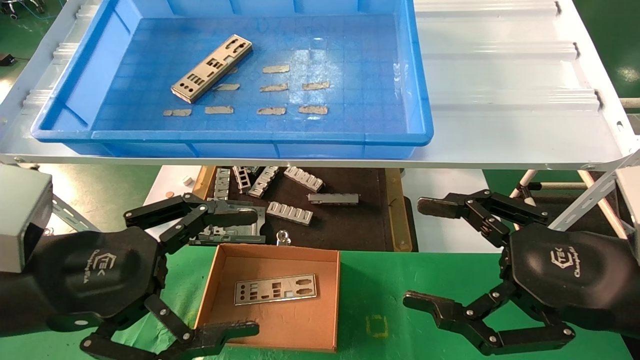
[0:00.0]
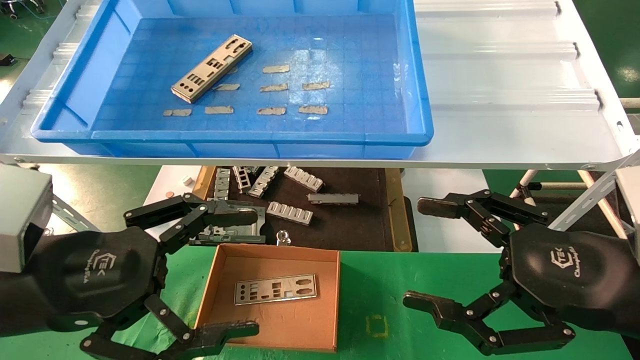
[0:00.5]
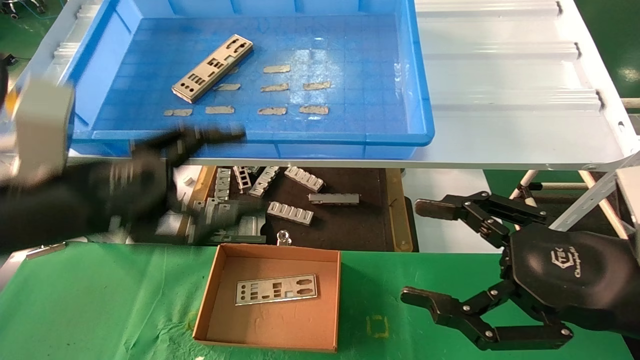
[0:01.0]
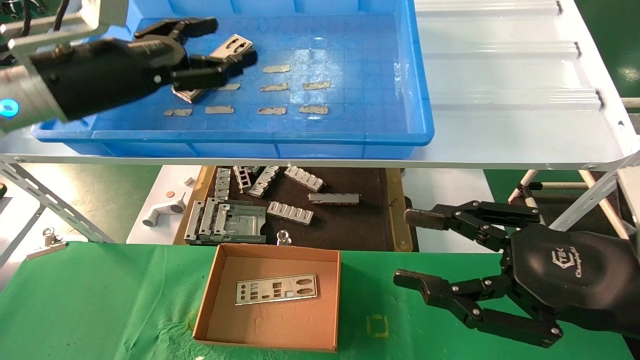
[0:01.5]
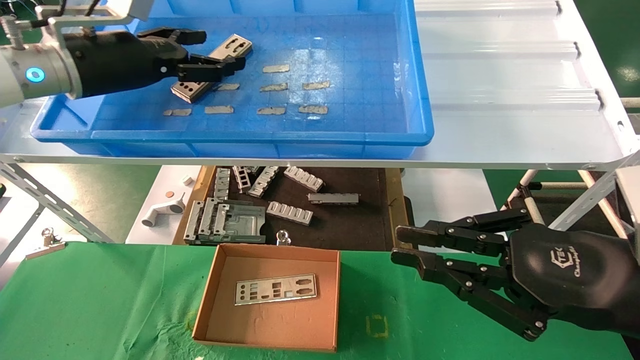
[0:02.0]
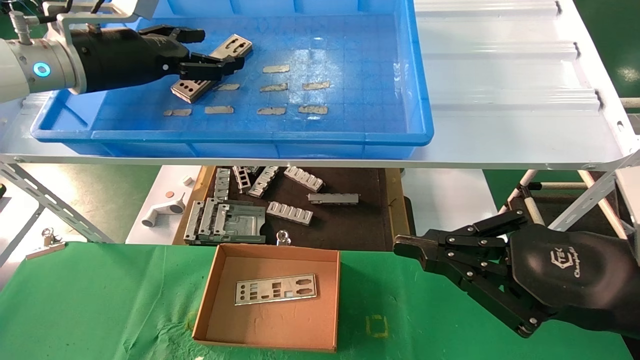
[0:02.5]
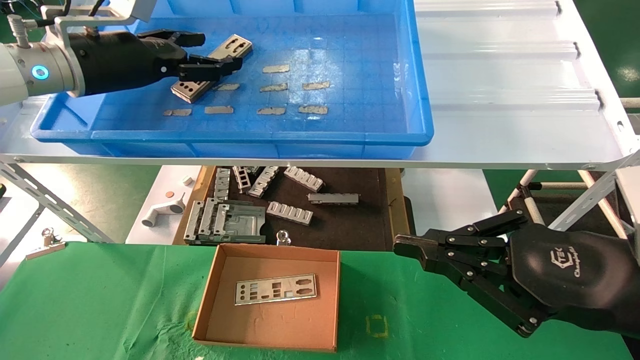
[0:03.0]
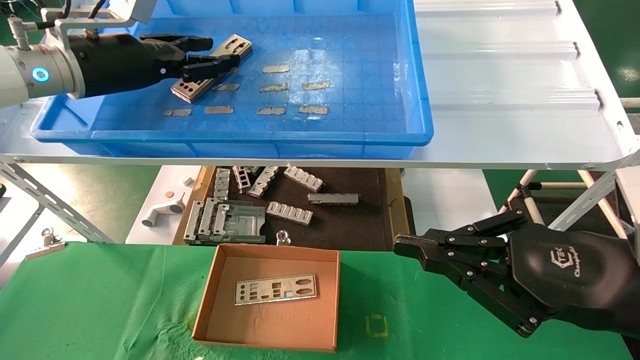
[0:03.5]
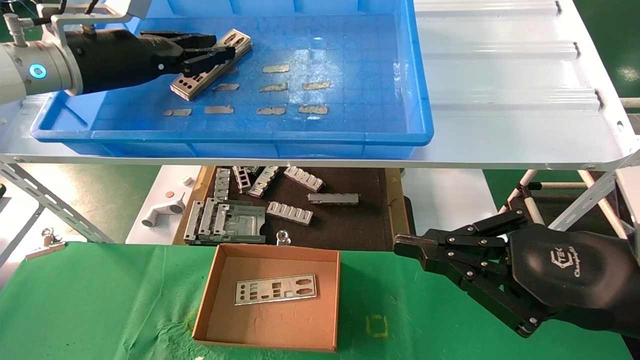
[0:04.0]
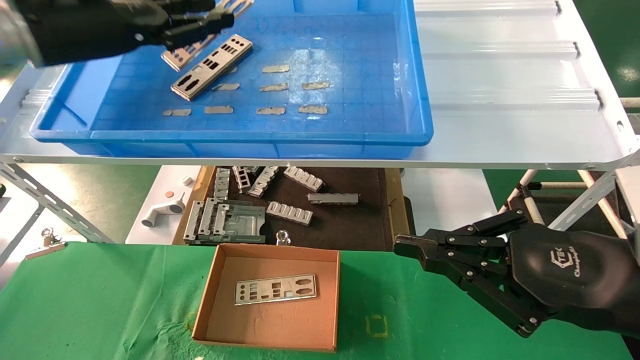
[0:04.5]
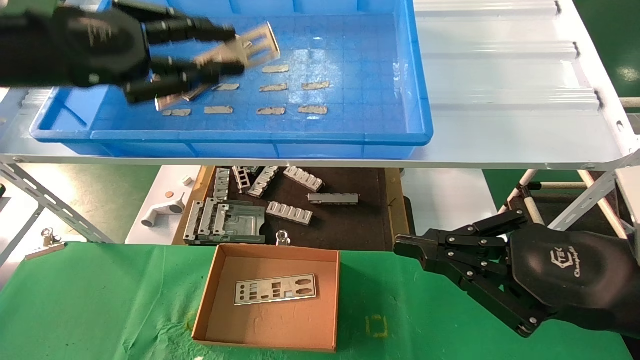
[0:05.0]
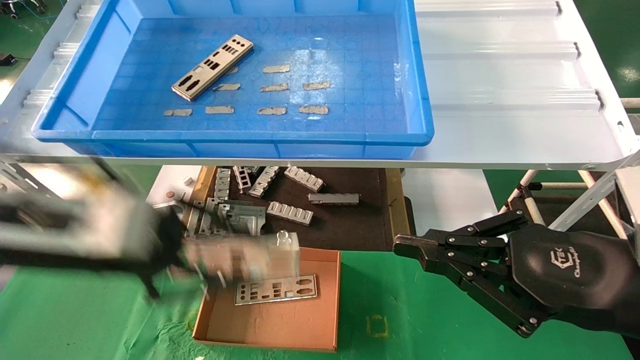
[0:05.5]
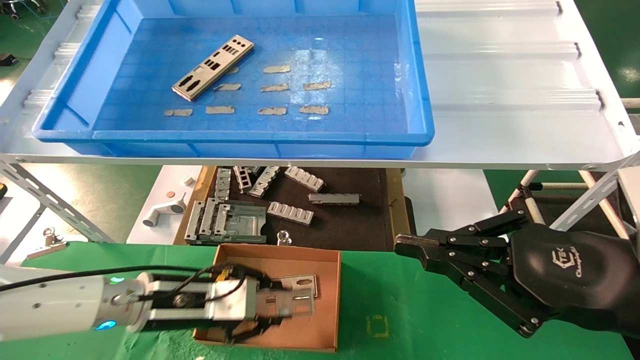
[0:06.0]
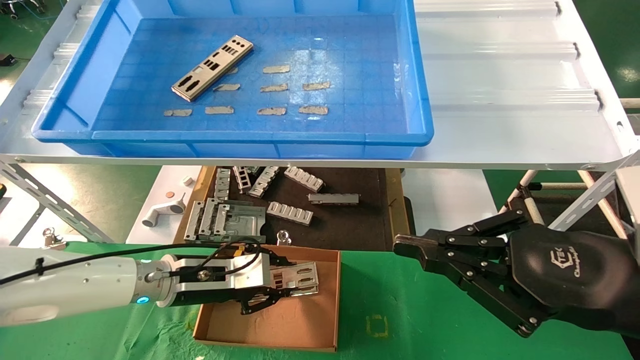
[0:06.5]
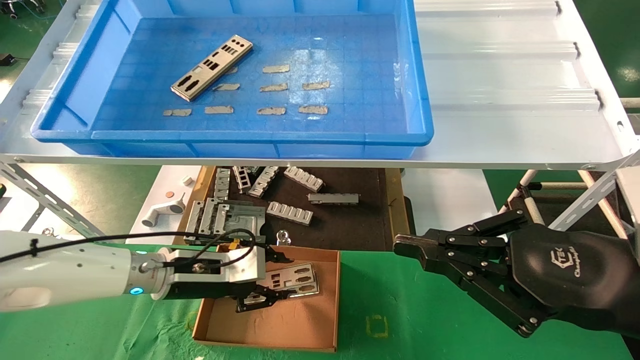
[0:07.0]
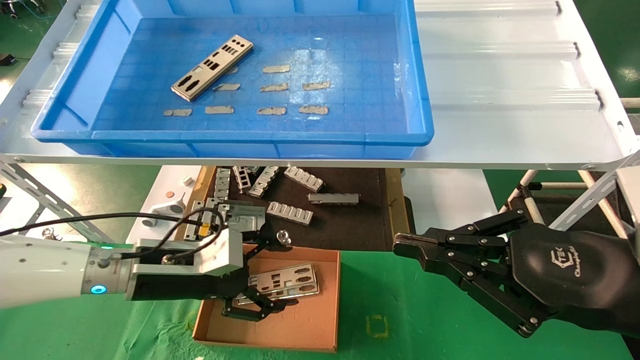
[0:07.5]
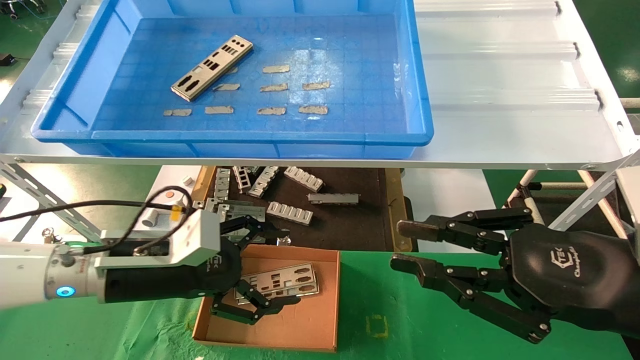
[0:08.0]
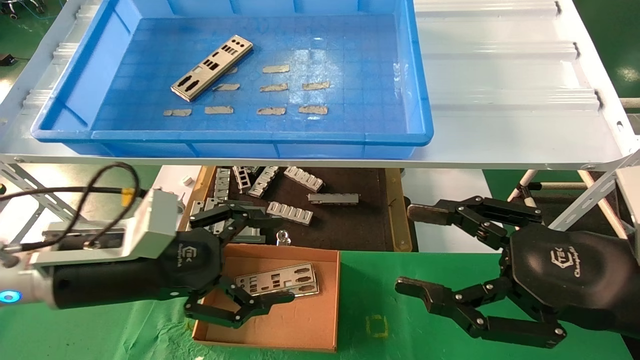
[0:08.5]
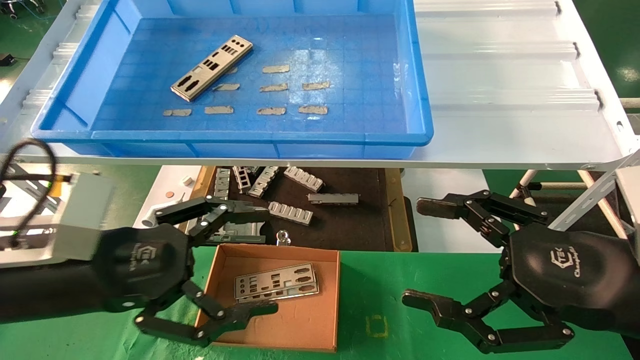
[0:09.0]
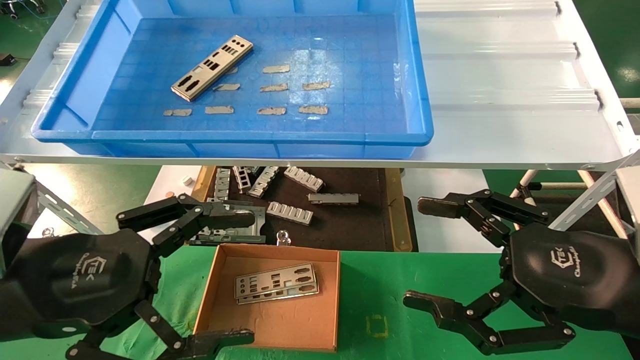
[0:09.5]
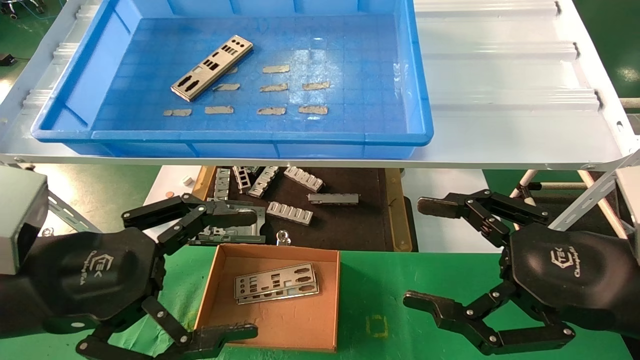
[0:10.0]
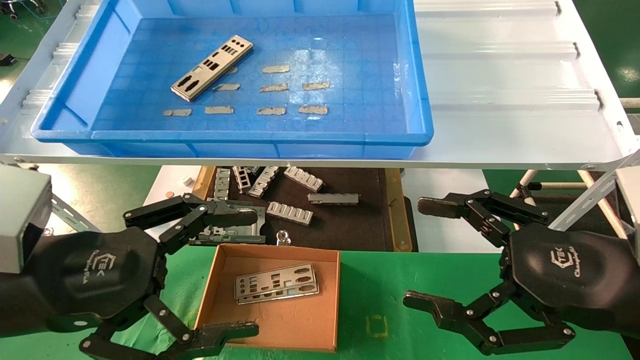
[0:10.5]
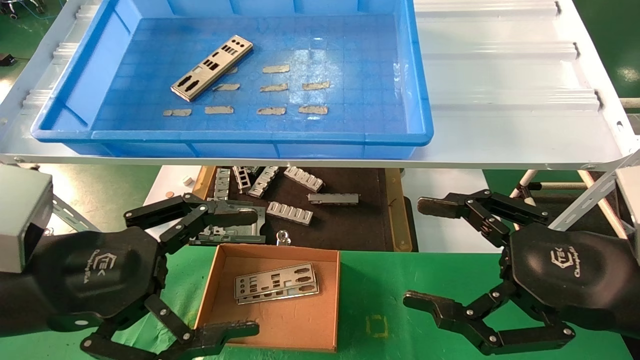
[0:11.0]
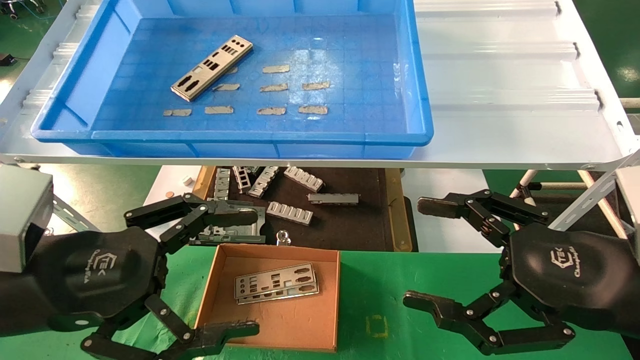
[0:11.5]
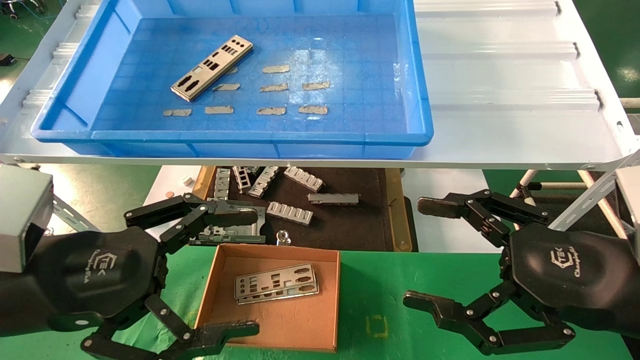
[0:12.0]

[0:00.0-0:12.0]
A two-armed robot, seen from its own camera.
Task of the whole recording: pick up the parts on the tray and put them in the cardboard box.
Step, 0:01.5 to 0:03.5: Pick up the IO bracket from the container box.
Step, 0:04.0 to 0:07.0: Place the IO bracket into the ingredient slot.
0:00.0 to 0:02.0: The left gripper goes approximately 25 cm forward and upward, while the right gripper closes its fingers.
0:02.0 to 0:04.0: The left gripper closes its fingers.
0:04.0 to 0:06.0: The left gripper goes about 30 cm downward.
0:06.0 to 0:08.0: The left gripper changes place by roughly 5 cm, and opens its fingers.
0:08.0 to 0:10.0: The right gripper opens its fingers. Meanwhile the left gripper is displaced backward and upward by approximately 15 cm.
0:10.0 to 0:12.0: Both grippers stay about where they are.

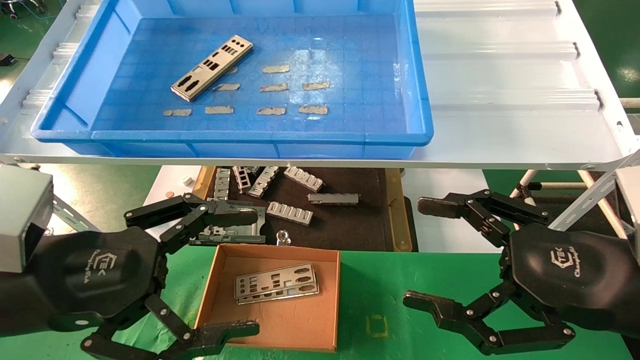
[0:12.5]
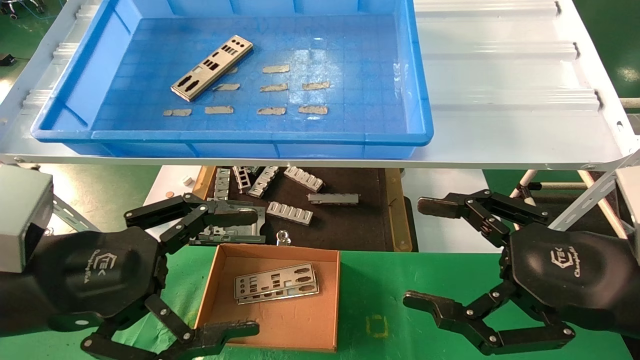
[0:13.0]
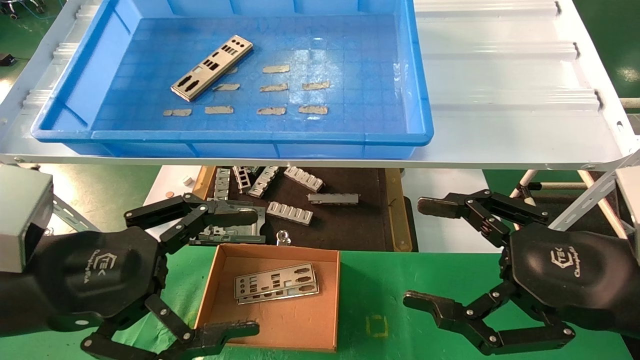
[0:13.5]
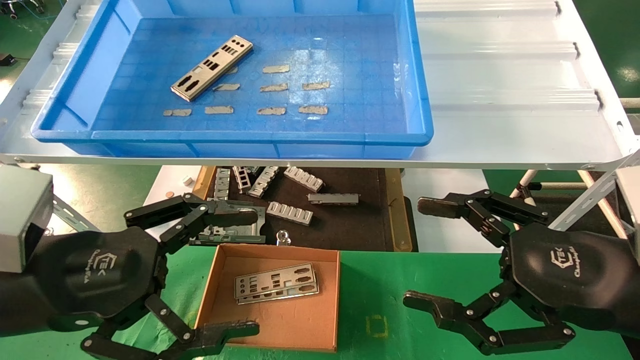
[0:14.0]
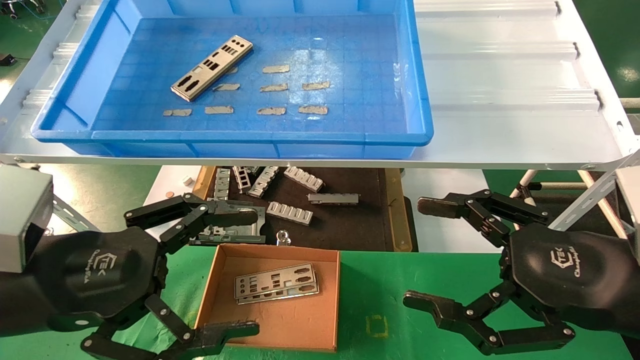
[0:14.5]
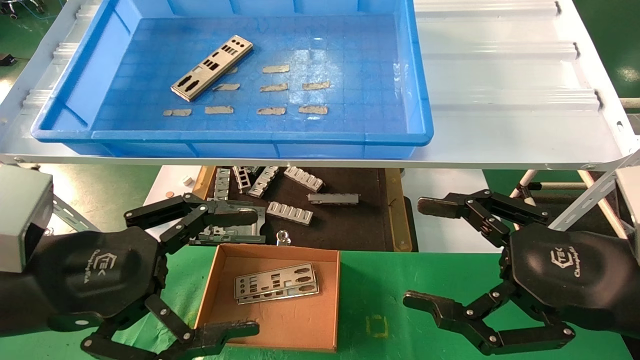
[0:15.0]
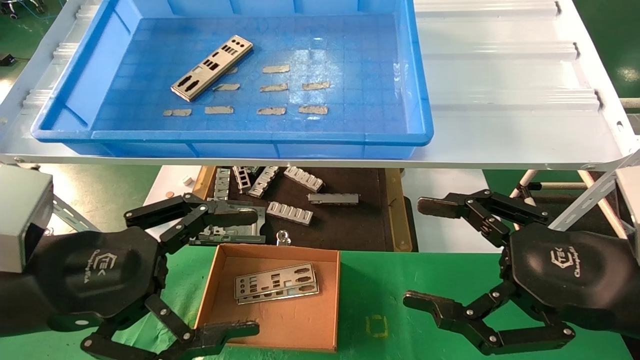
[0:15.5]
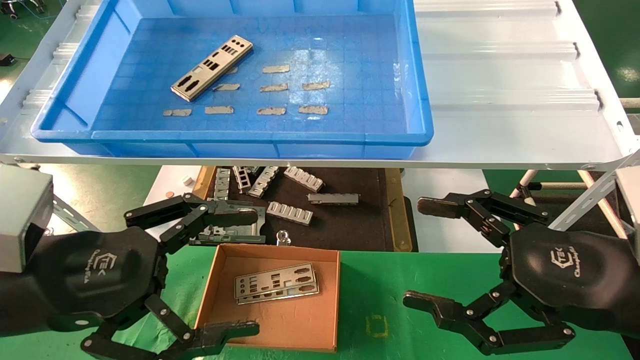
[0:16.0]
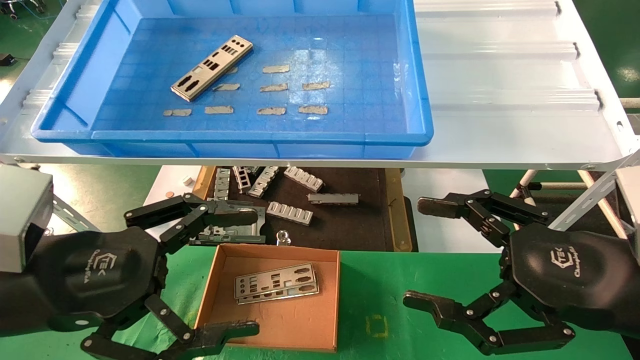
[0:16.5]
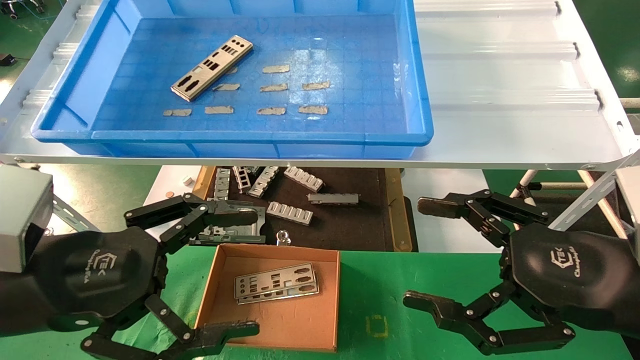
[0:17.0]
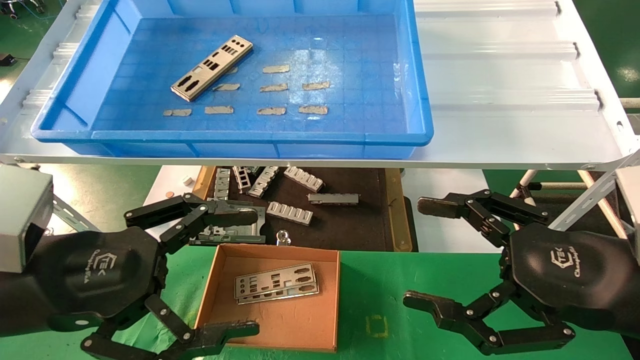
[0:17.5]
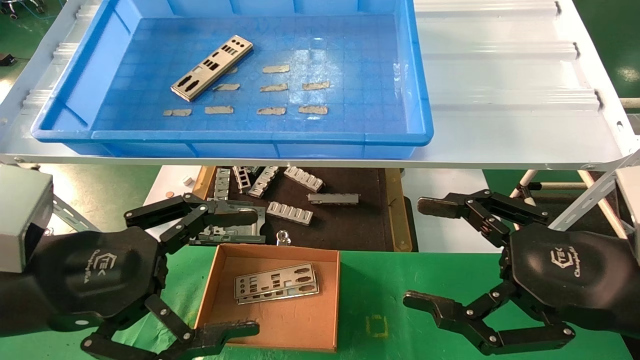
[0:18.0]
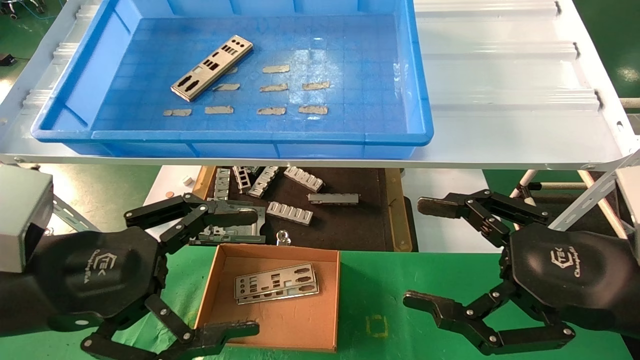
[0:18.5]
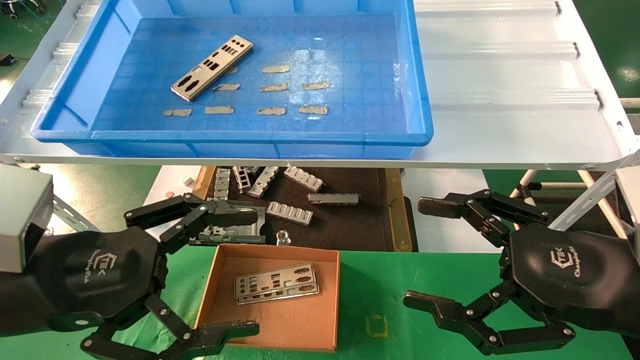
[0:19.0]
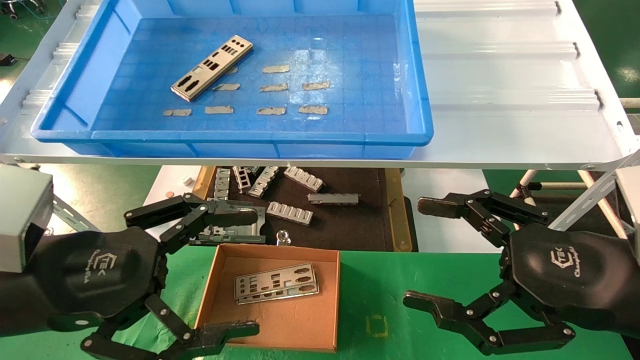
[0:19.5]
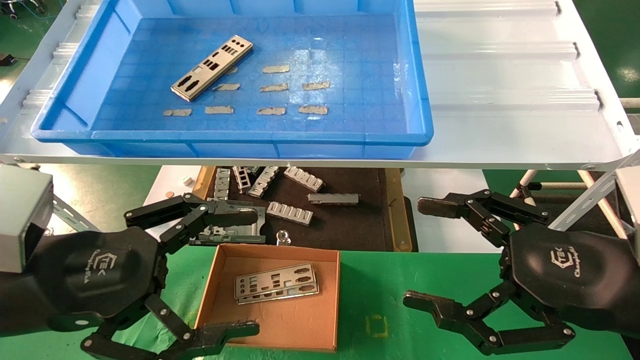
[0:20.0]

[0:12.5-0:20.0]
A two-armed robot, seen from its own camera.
Task of the whole recording: pick up the parts on the tray and put them in the cardboard box.
0:12.5 to 0:20.0: Both grippers stay about where they are.
